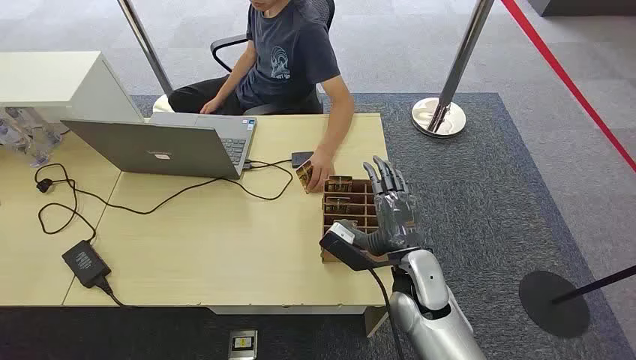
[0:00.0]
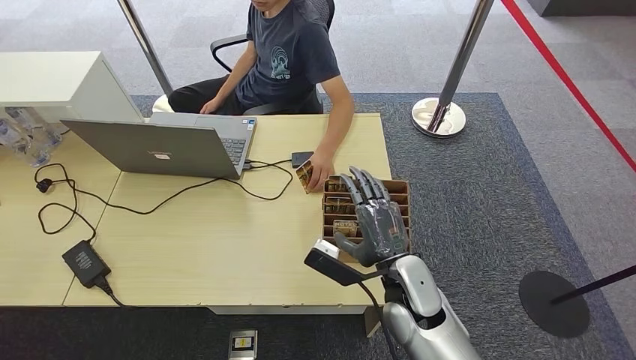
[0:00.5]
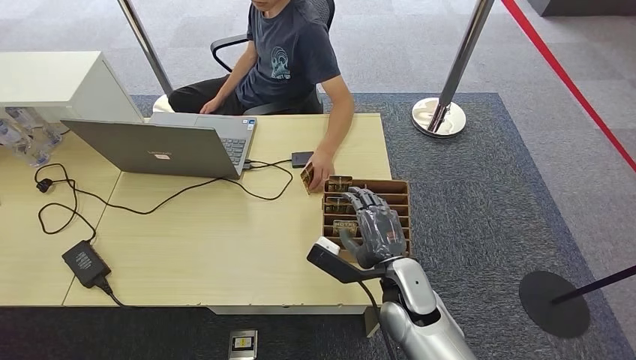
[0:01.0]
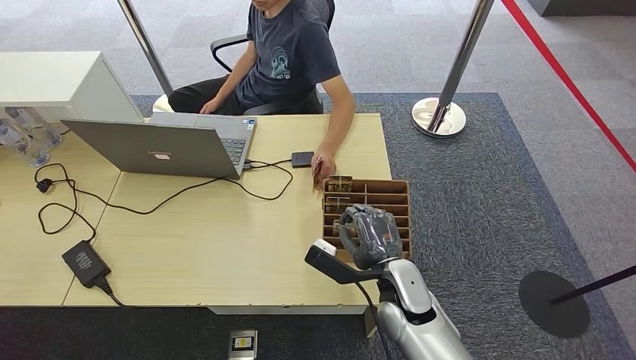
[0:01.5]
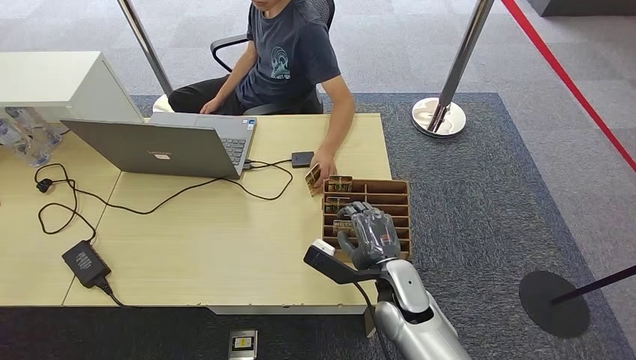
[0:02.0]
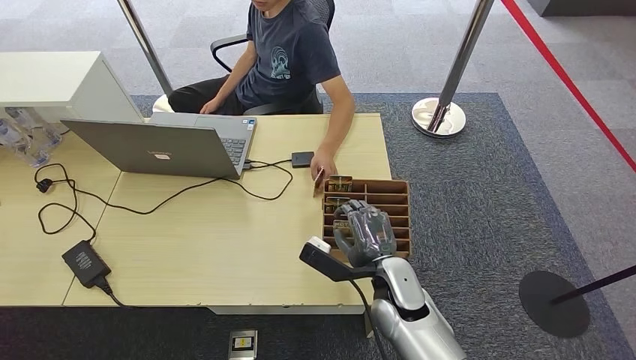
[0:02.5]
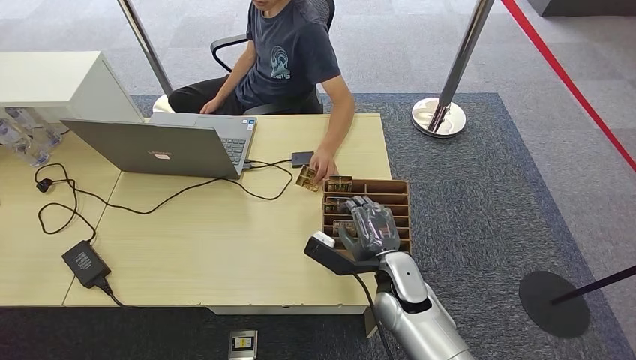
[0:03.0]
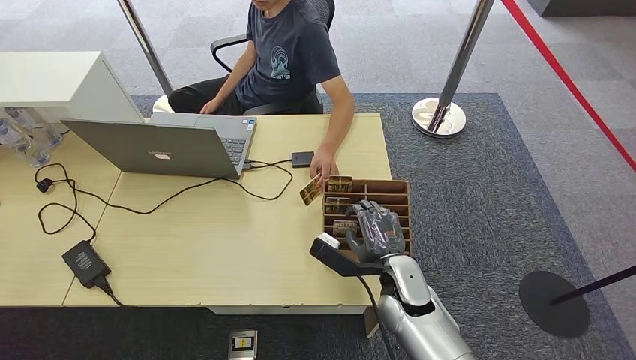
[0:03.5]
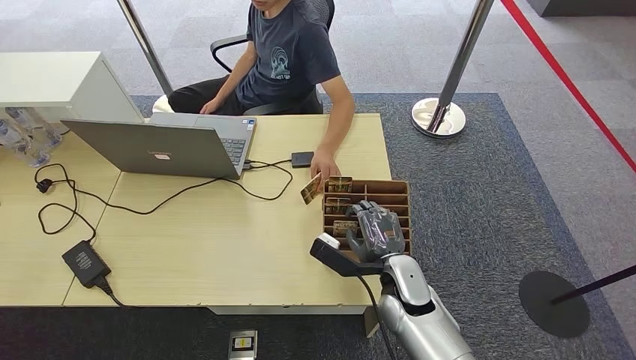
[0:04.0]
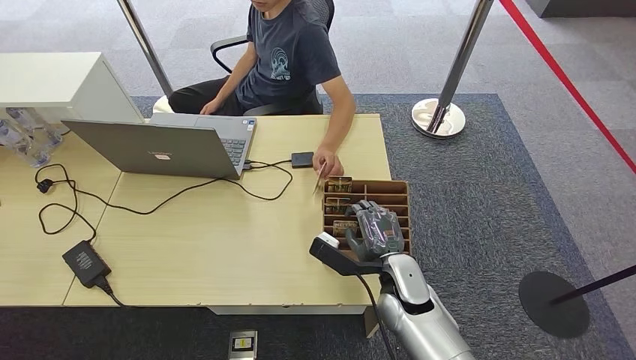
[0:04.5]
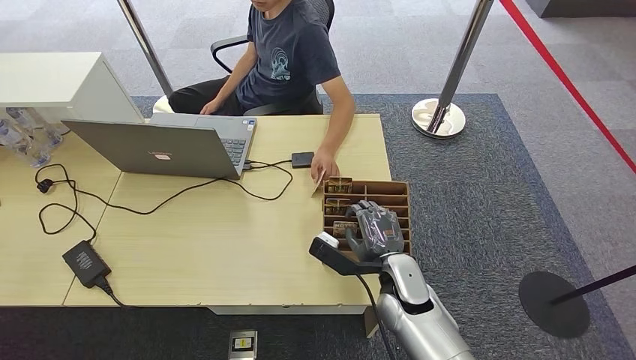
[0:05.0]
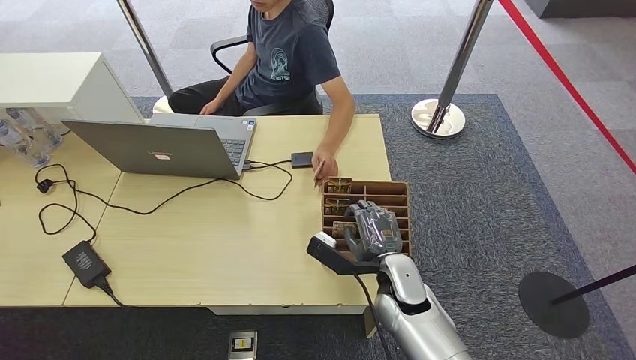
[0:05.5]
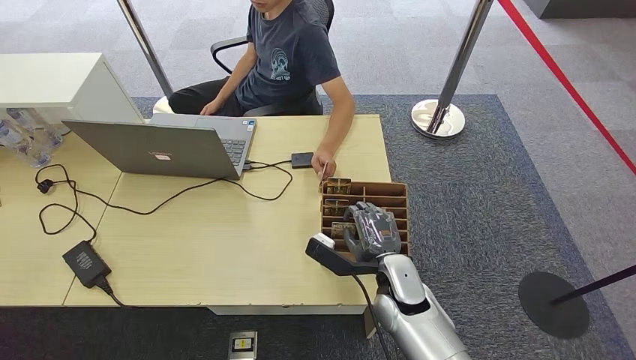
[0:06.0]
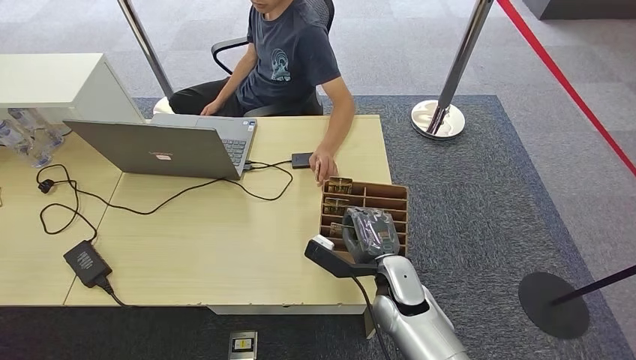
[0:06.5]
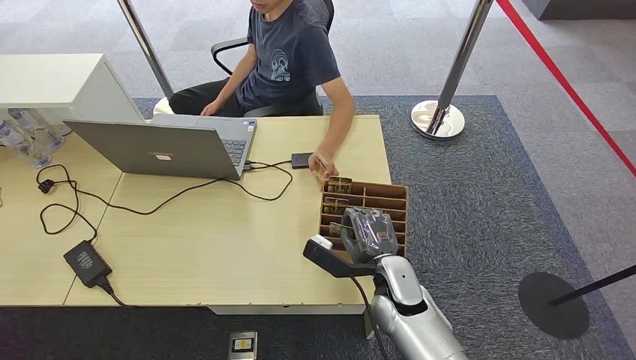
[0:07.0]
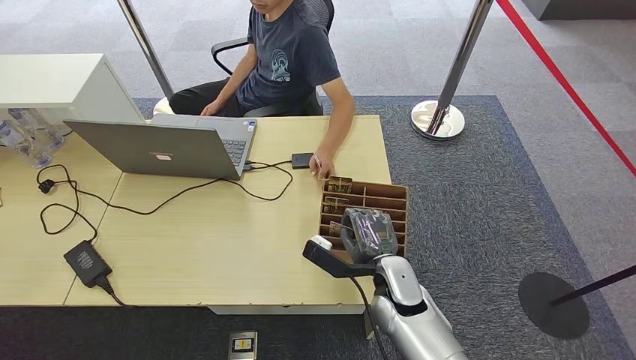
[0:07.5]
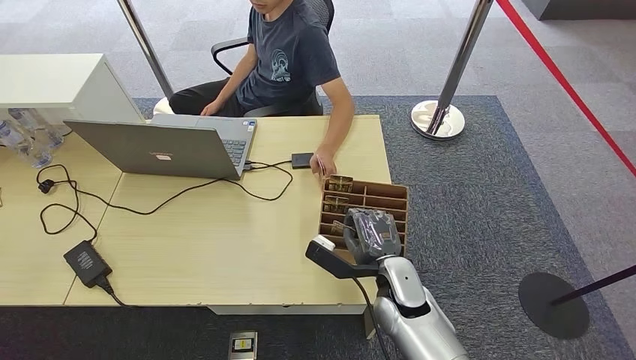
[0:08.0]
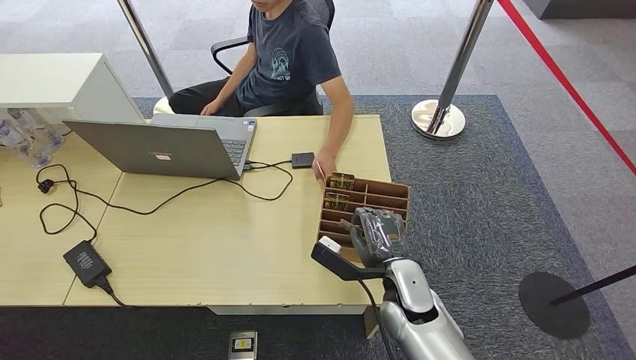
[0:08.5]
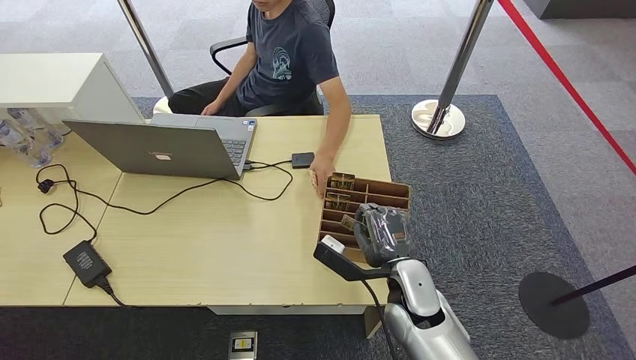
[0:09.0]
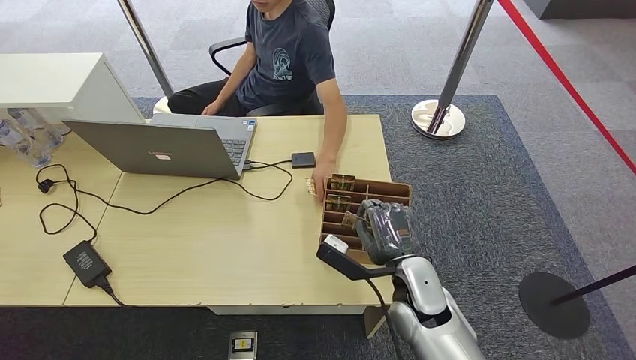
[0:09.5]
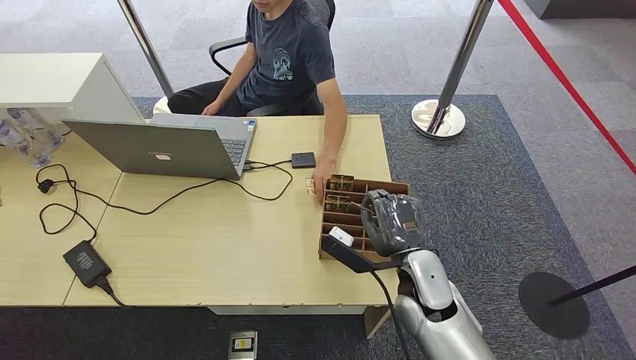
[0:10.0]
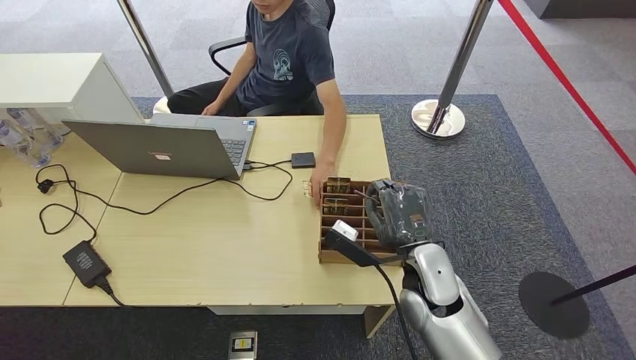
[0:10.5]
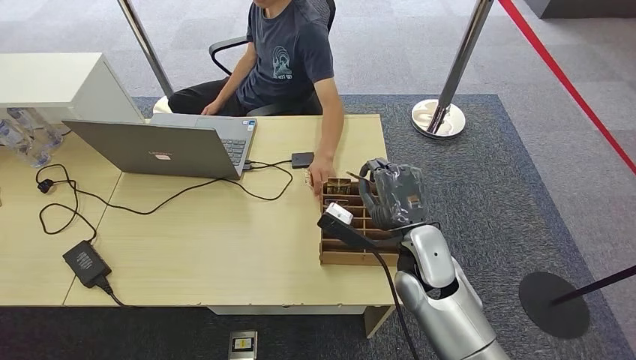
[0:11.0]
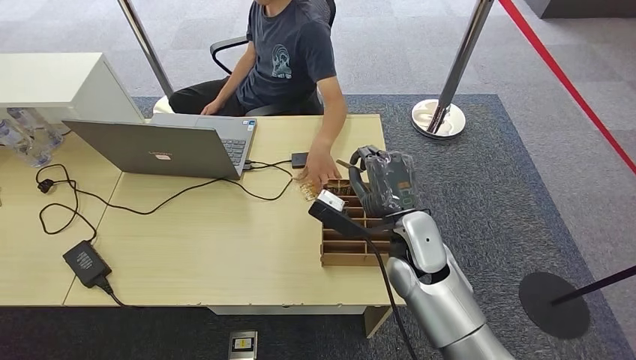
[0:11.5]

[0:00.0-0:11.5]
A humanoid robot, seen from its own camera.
Step, 0:00.0 to 0:09.5: Pick up the key card from the card box.
Step, 0:10.0 to 0:11.5: Hand the key card to the target.
0:02.0 to 0:04.0: There are only small adjustments of the hands.
0:04.0 to 0:07.5: The two hands keep their place.
0:07.5 to 0:09.5: The hands make only small movements.
0:09.5 to 0:11.5: The right hand travels upward and forward by about 10 cm.
